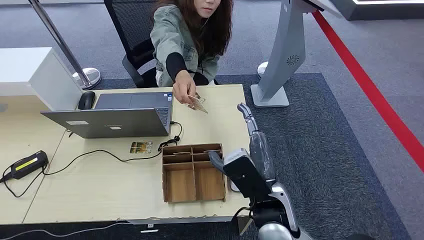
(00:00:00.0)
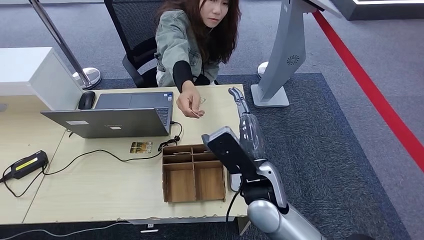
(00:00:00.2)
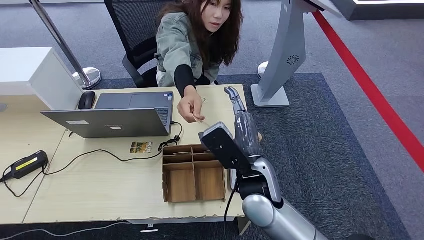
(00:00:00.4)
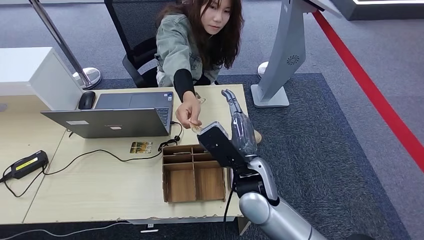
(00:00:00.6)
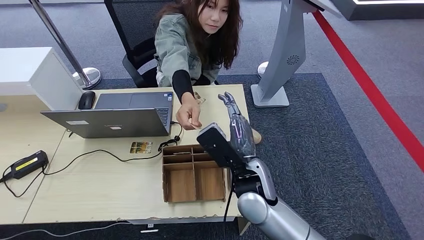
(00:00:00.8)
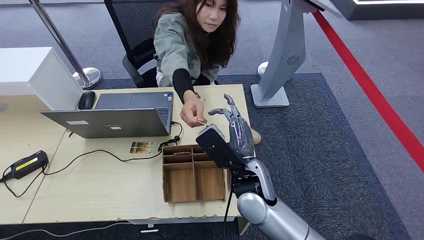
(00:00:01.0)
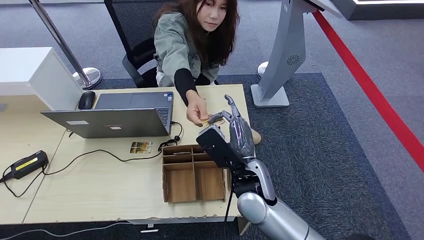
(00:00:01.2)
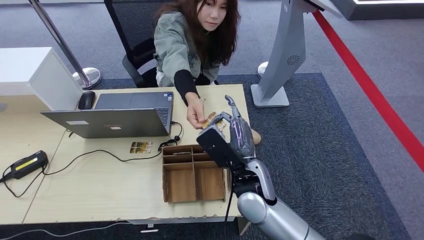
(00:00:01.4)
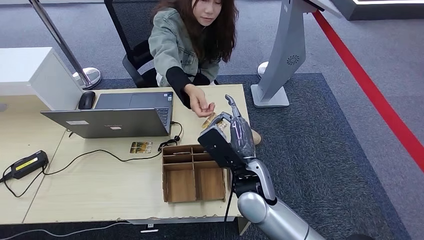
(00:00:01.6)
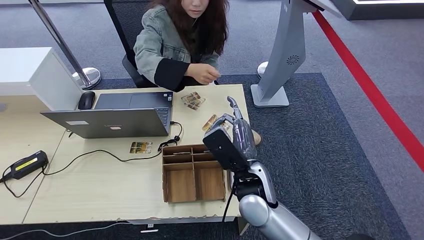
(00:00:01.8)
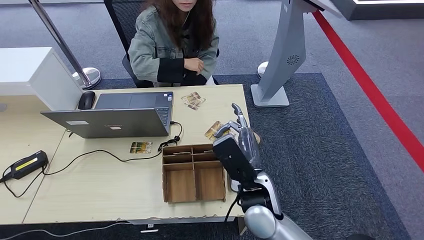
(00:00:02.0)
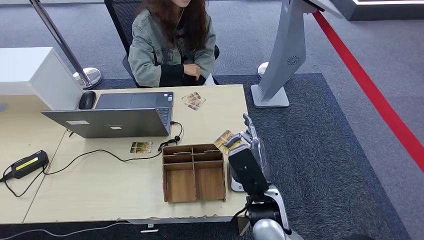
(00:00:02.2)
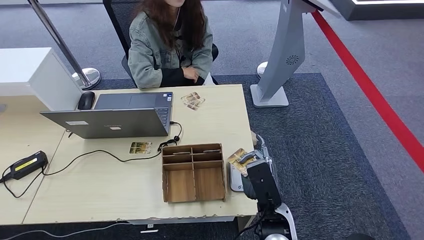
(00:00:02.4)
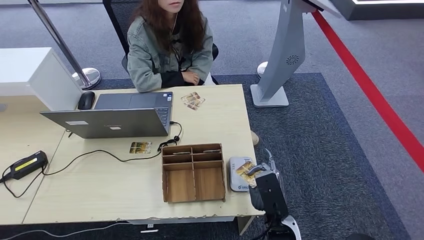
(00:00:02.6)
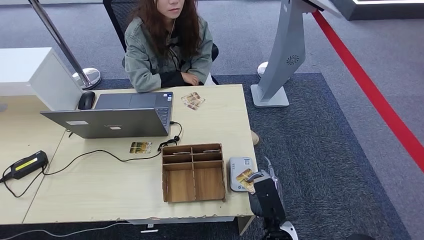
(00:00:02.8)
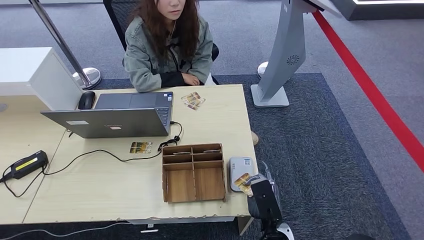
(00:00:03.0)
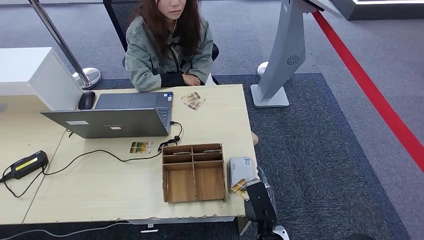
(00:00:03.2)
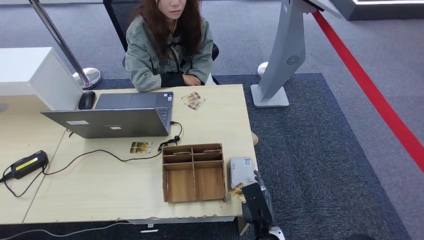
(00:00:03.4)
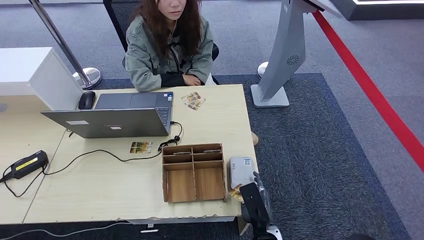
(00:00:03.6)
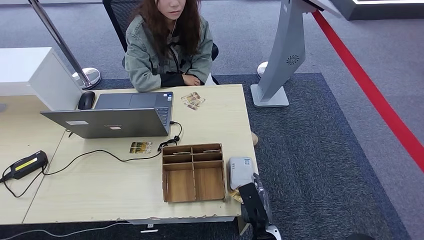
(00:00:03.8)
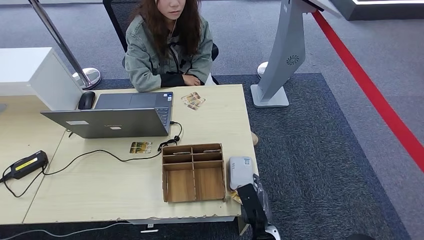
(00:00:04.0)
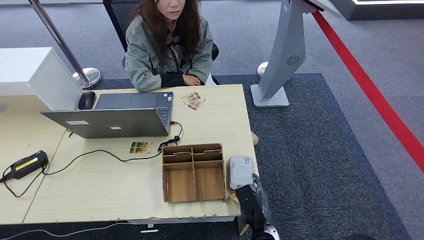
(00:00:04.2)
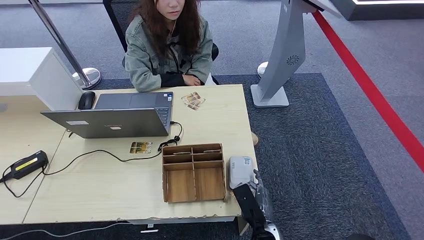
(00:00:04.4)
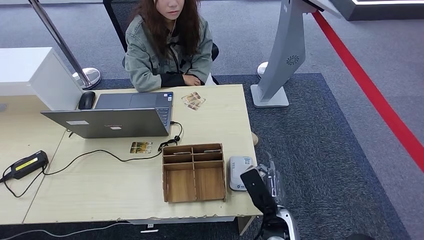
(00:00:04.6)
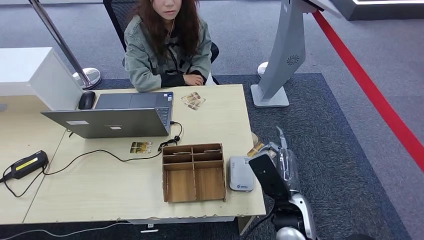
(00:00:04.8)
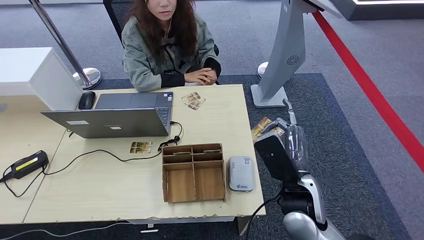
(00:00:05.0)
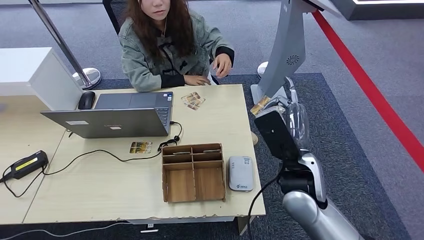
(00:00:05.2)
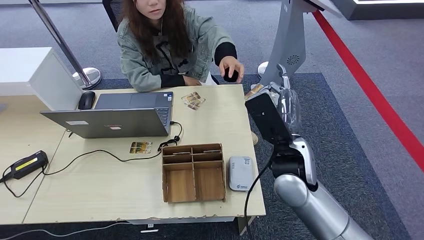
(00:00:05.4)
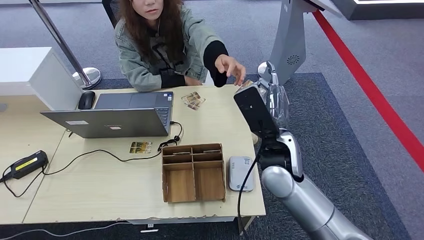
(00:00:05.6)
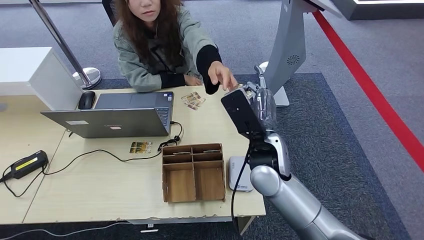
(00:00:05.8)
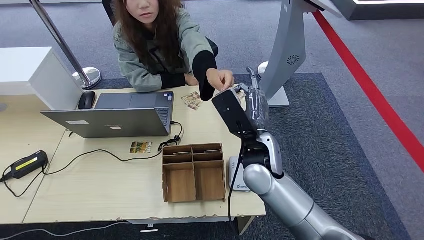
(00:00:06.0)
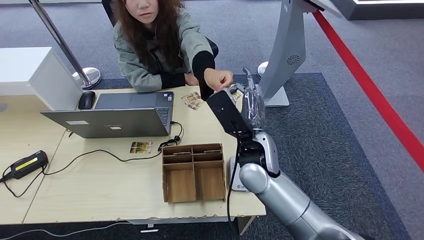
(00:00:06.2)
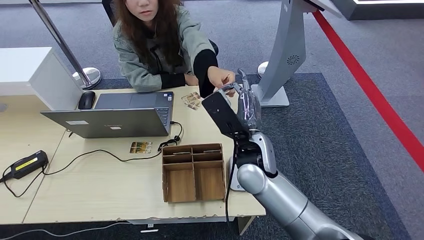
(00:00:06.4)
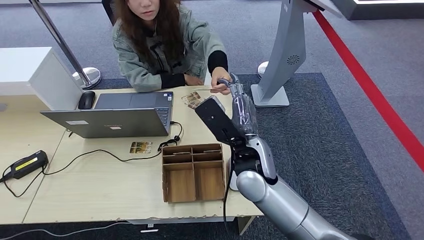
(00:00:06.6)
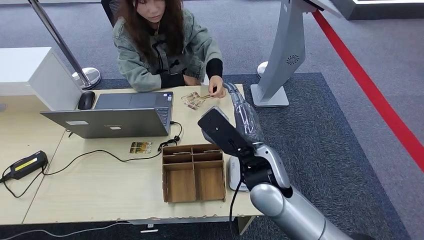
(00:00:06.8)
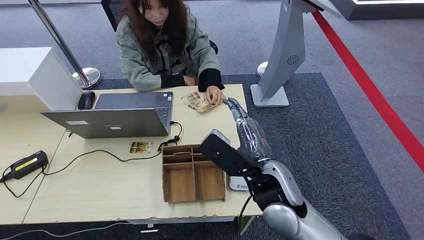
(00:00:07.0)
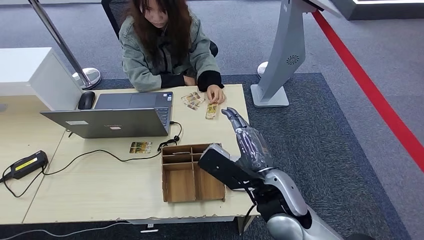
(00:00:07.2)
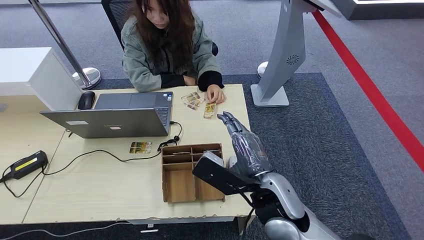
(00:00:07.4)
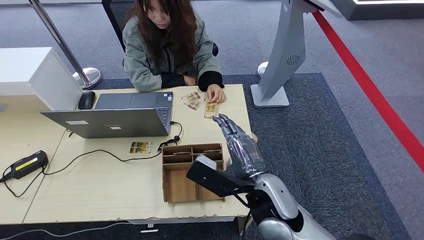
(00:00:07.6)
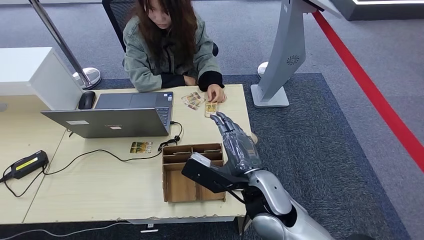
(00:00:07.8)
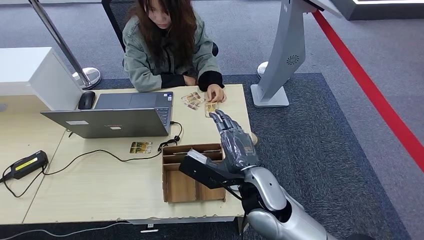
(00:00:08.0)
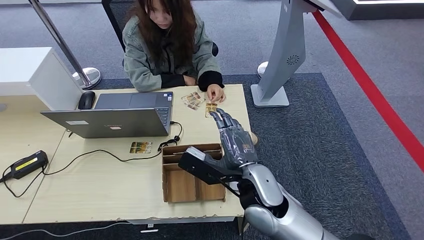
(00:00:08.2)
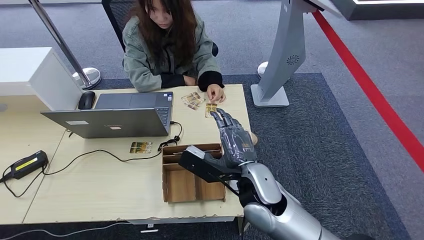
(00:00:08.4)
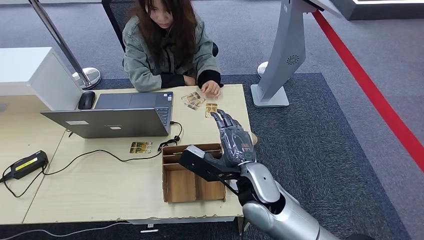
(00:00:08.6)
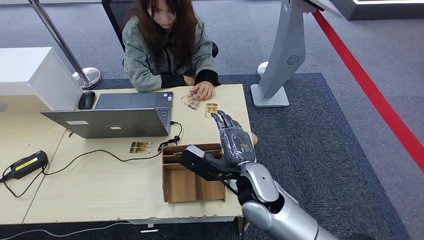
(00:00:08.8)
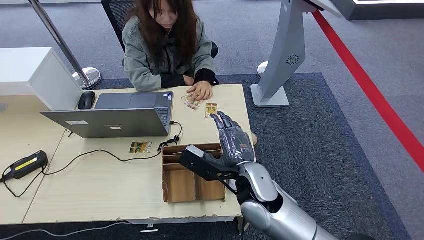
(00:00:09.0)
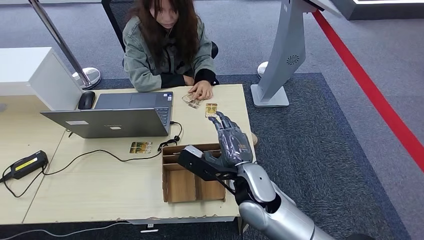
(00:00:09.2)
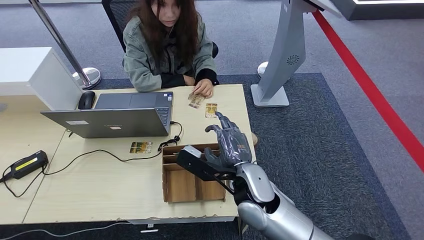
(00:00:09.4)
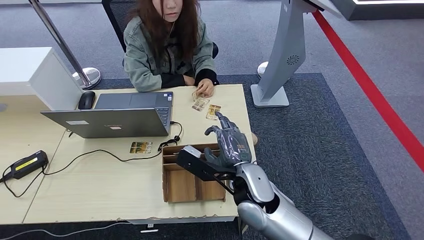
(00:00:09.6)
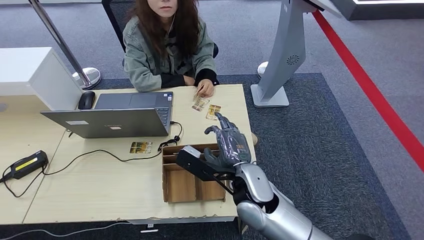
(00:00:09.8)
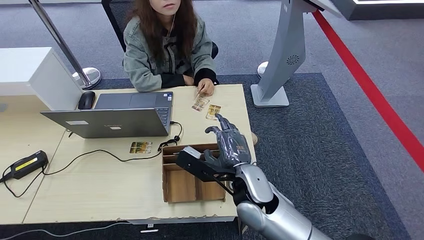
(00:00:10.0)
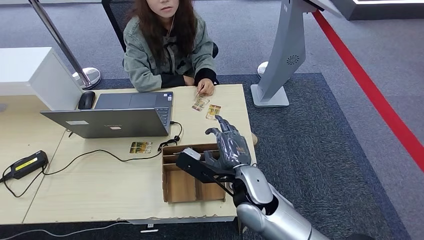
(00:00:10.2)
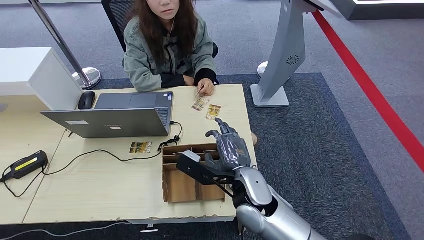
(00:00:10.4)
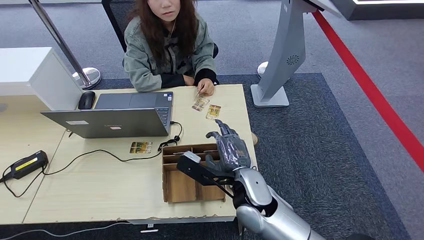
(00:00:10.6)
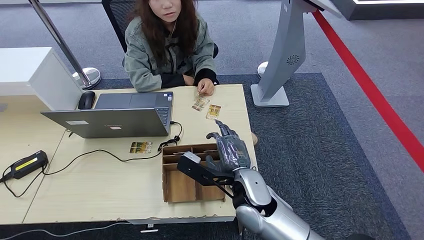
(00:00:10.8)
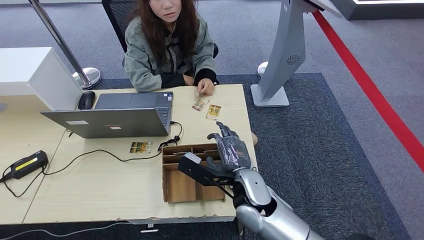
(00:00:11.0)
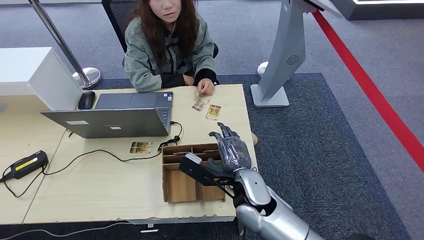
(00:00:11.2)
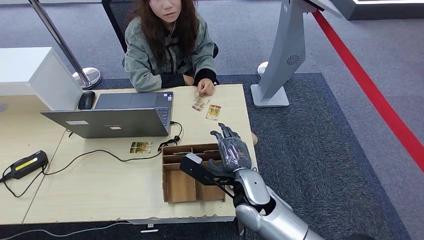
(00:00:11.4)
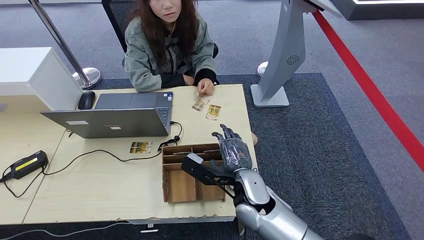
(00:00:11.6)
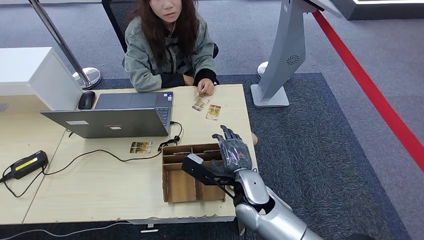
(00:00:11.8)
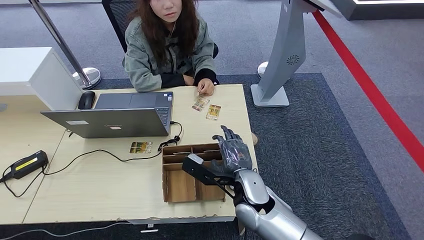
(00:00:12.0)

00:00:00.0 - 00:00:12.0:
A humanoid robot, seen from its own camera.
Step, 00:00:00.0 - 00:00:01.6: Take the ID card from the person's hand.
Step, 00:00:02.0 - 00:00:04.8: Place the ID card on the card reader.
Step, 00:00:05.0 - 00:00:06.8: Hand the ID card to the person.
00:00:01.6 - 00:00:03.0: The right hand heads downward, backward and to the right, covering approximately 20 cm.
00:00:03.0 - 00:00:04.4: The hands move only a little.
00:00:04.4 - 00:00:06.0: The right hand goes roughly 30 cm upward and forward.
00:00:06.0 - 00:00:07.6: The right hand heads backward, covering approximately 10 cm.
00:00:07.6 - 00:00:09.0: The hands move only a little.
00:00:09.0 - 00:00:12.0: The hands move only a little.

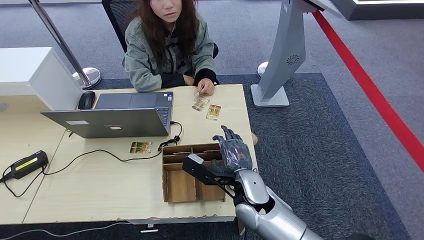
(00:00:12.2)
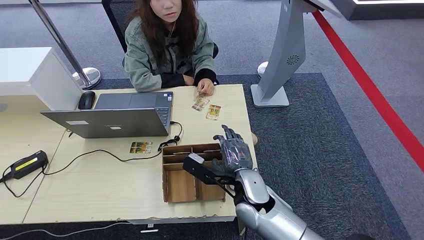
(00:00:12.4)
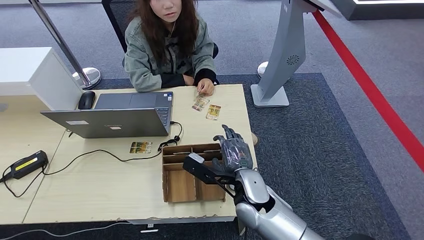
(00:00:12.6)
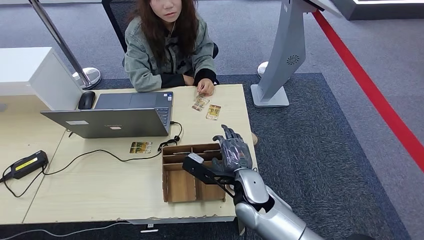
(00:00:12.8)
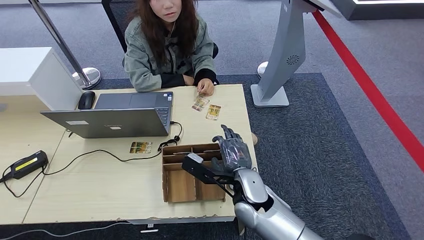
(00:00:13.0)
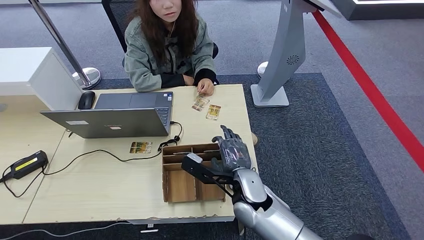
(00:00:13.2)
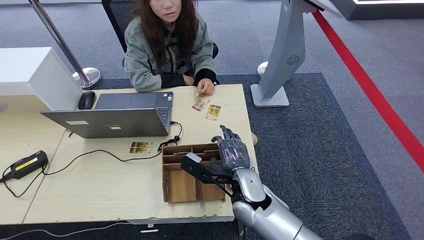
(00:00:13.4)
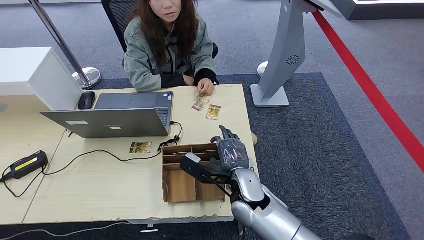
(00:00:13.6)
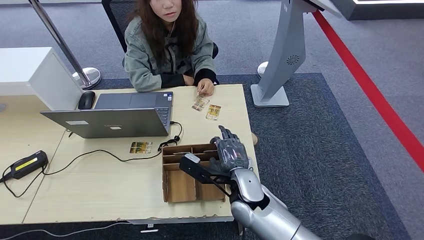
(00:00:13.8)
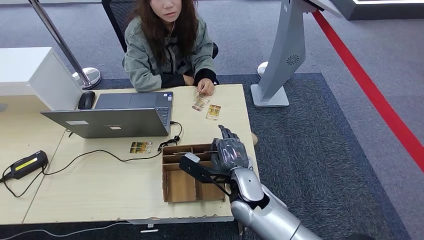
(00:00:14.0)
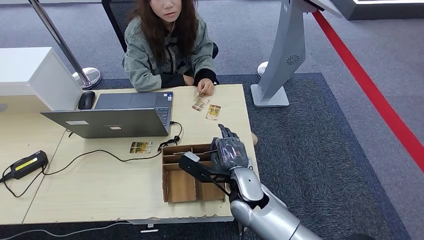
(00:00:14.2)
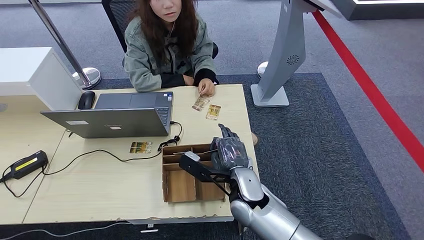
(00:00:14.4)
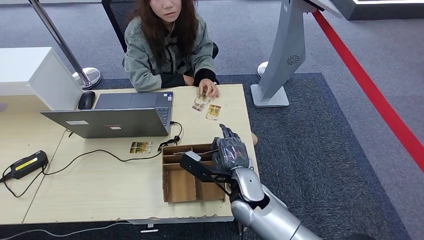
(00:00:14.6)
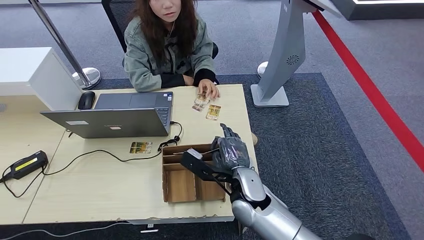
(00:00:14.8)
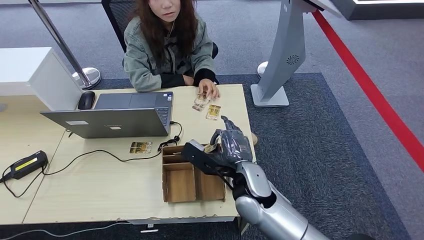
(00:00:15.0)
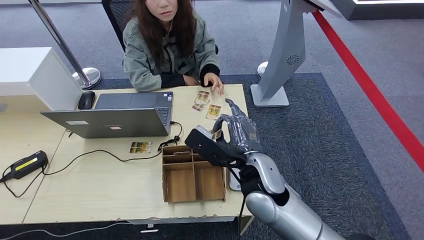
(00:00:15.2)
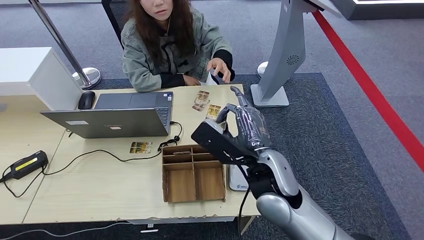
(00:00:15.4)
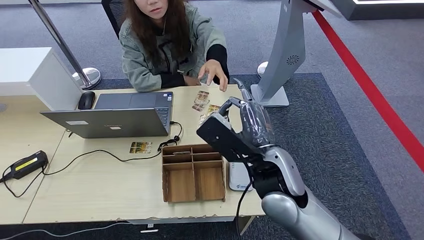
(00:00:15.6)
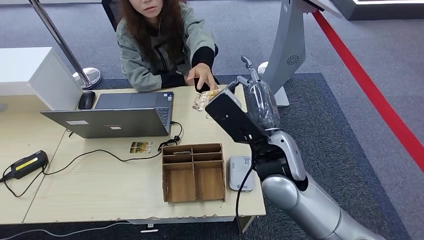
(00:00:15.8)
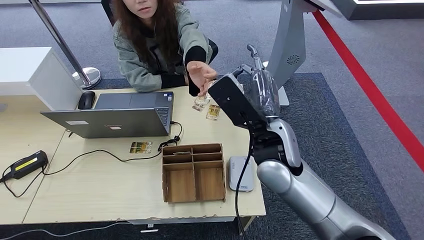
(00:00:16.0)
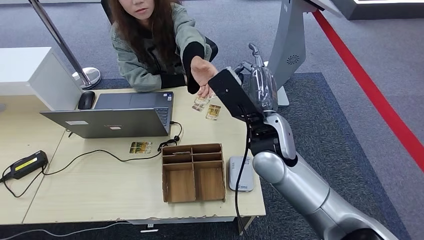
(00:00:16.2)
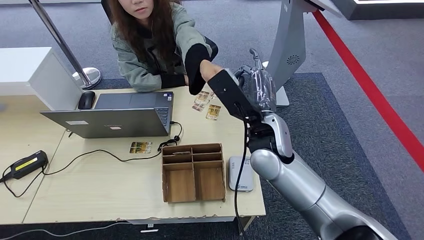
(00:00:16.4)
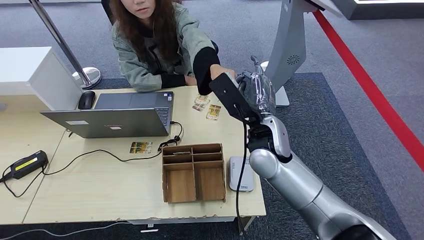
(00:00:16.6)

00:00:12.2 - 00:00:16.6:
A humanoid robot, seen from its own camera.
Step, 00:00:14.6 - 00:00:16.6: Hand the room key to the person.
00:00:12.2 - 00:00:13.6: Both hands stay put.
00:00:13.6 - 00:00:15.2: The right hand is displaced upward by approximately 10 cm.
00:00:15.2 - 00:00:16.6: The right hand moves forward and upward, about 10 cm.
